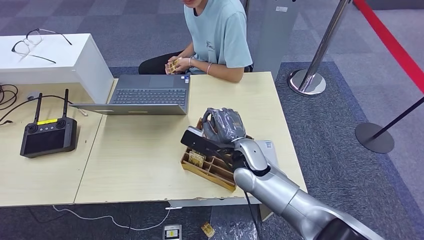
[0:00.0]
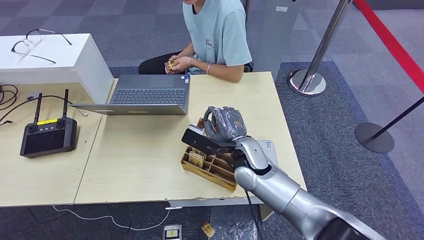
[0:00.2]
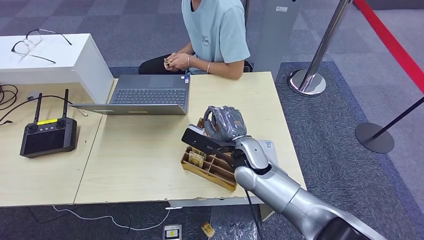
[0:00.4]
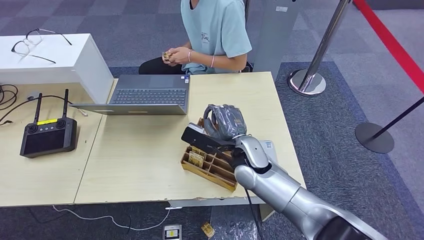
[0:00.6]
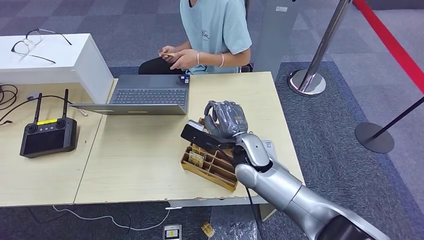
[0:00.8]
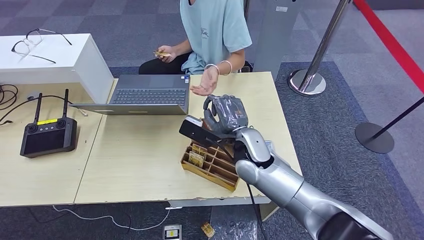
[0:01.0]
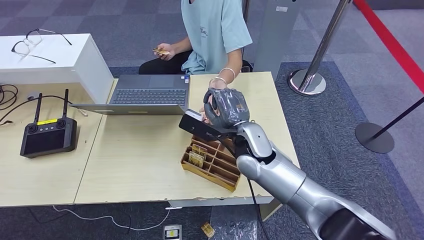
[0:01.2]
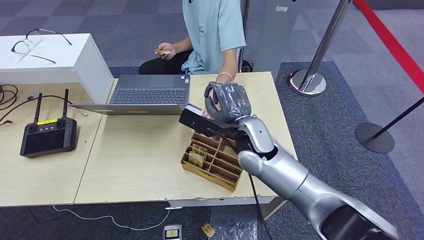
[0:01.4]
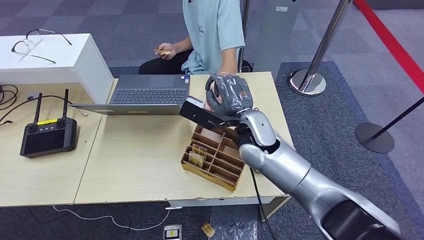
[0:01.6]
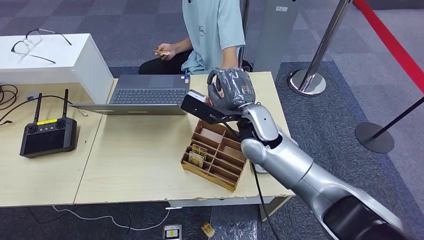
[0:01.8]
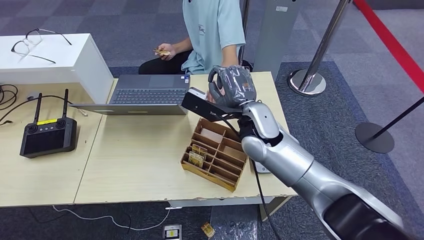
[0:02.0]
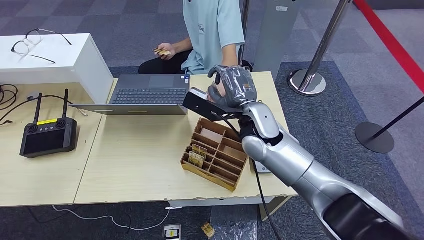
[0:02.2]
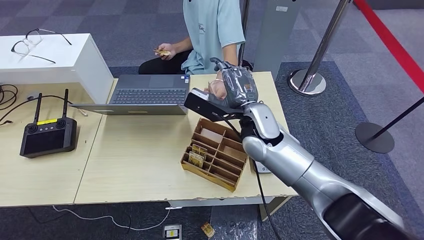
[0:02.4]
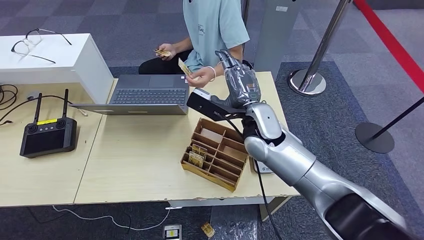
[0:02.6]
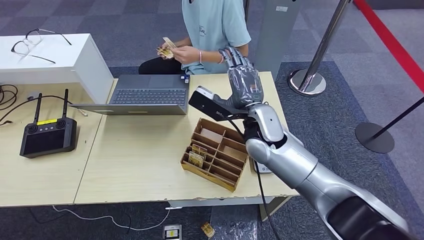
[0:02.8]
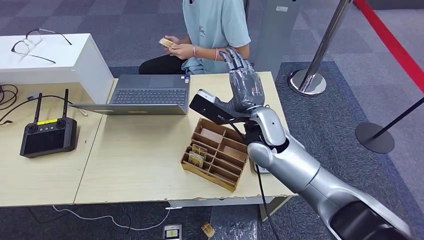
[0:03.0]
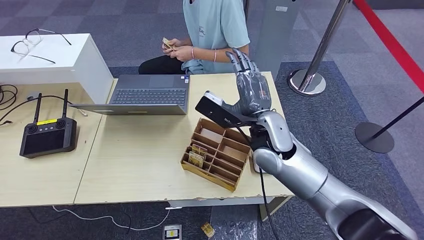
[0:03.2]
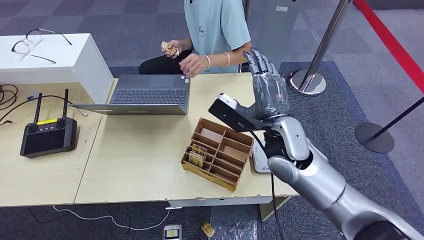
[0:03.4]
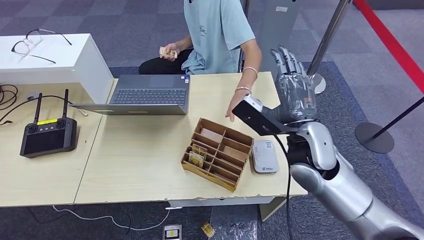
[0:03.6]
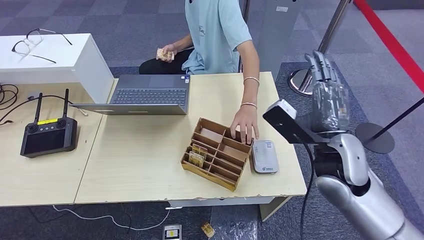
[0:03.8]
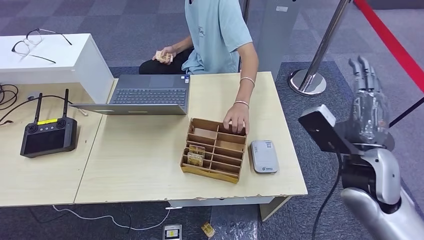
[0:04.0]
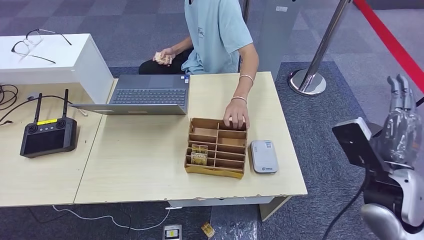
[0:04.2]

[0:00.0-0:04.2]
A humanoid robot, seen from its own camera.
Step, 0:00.8 to 0:04.2: Hand the room key to the person.
0:00.0 to 0:01.4: The right hand moves upward, approximately 5 cm.
0:01.4 to 0:02.8: The hands move only a little.
